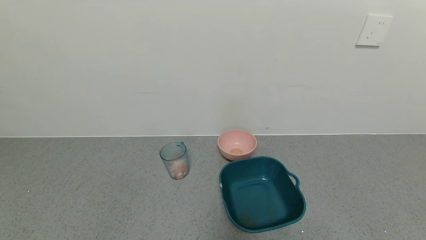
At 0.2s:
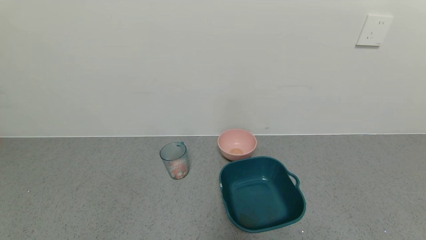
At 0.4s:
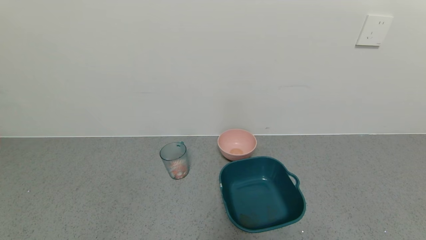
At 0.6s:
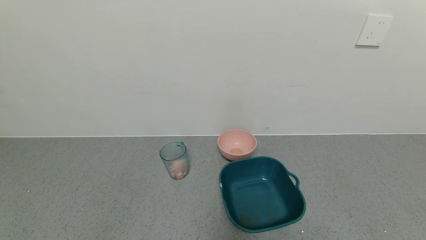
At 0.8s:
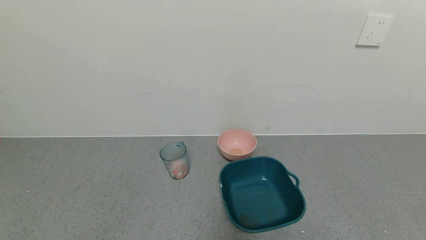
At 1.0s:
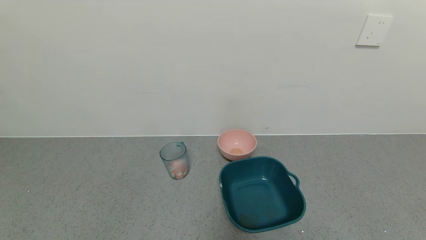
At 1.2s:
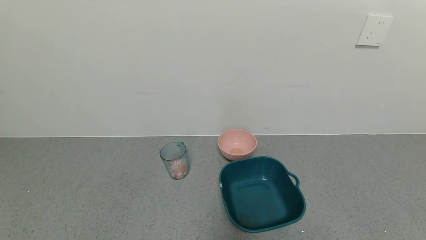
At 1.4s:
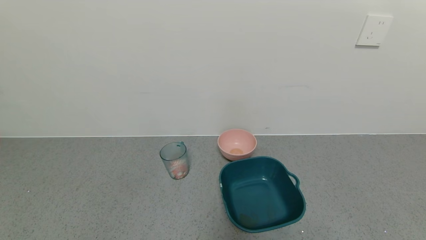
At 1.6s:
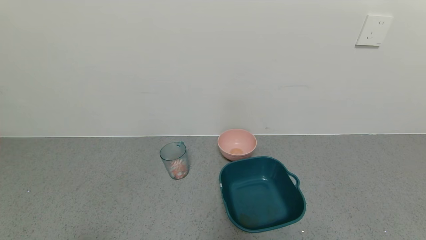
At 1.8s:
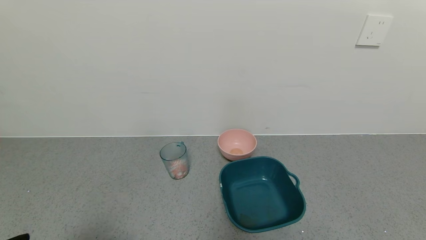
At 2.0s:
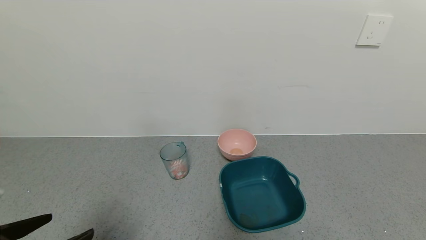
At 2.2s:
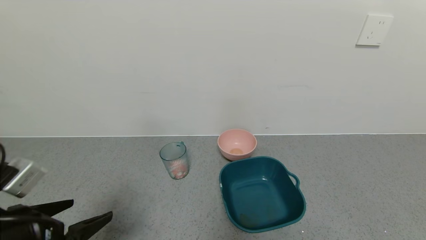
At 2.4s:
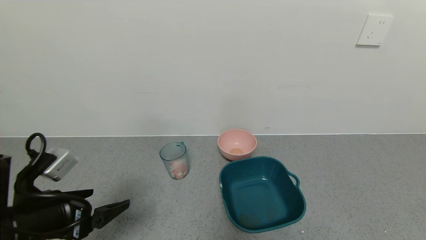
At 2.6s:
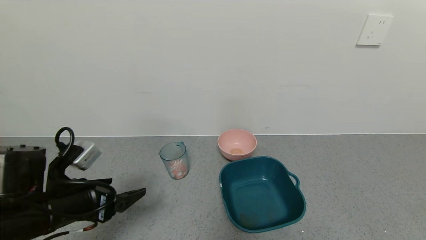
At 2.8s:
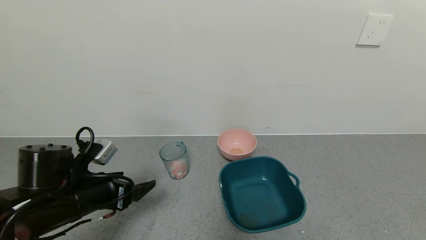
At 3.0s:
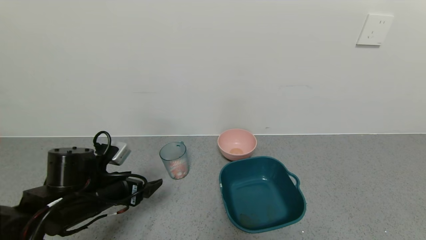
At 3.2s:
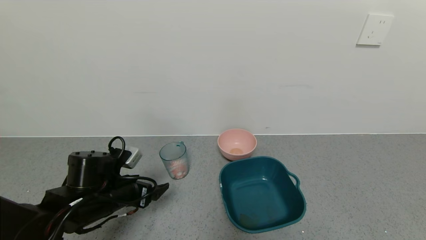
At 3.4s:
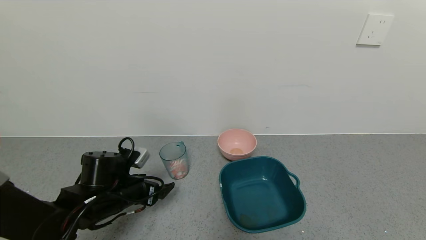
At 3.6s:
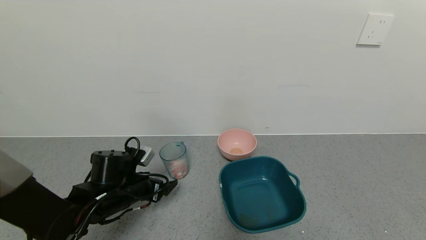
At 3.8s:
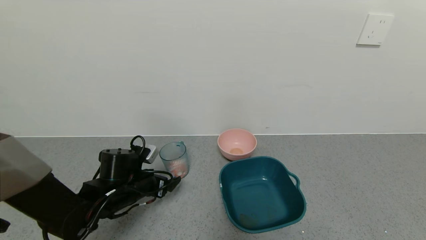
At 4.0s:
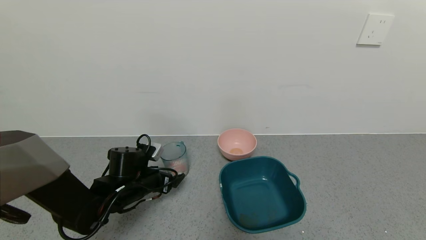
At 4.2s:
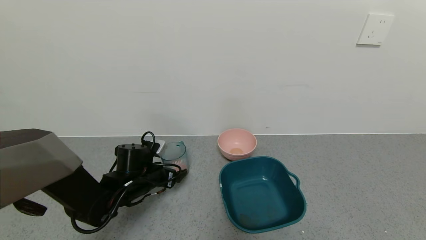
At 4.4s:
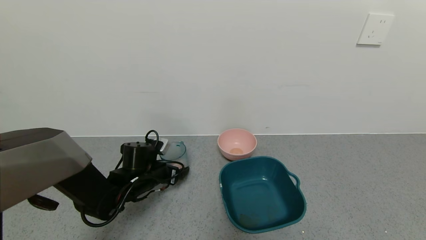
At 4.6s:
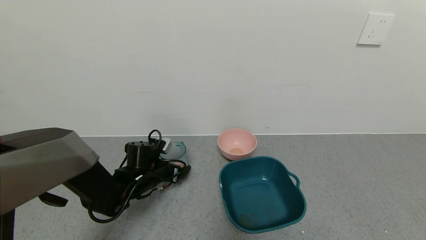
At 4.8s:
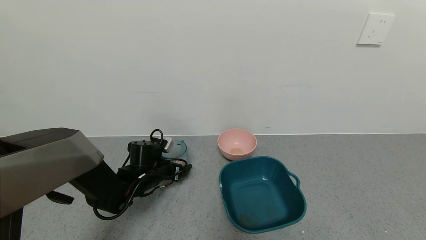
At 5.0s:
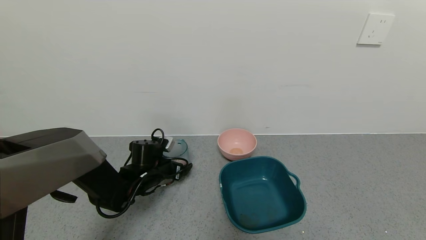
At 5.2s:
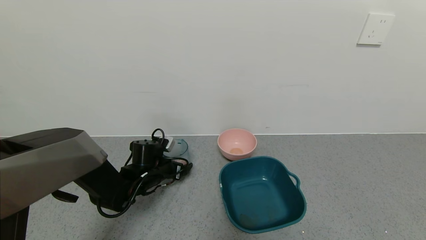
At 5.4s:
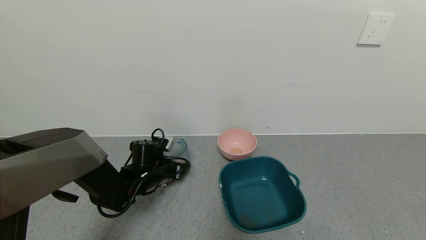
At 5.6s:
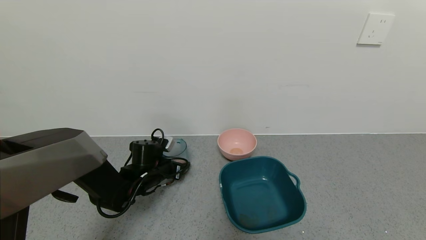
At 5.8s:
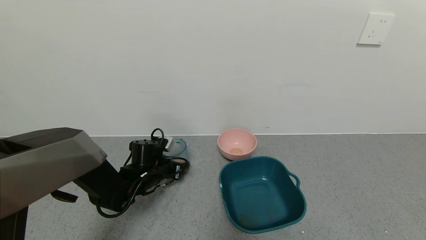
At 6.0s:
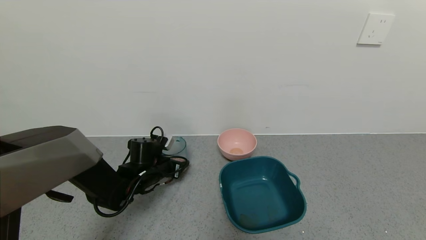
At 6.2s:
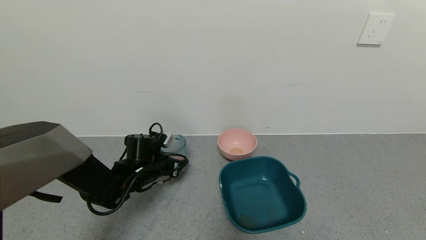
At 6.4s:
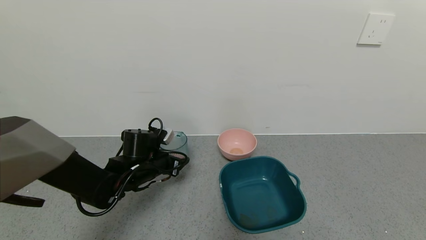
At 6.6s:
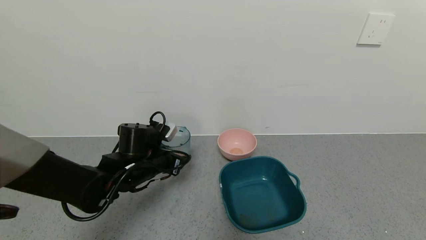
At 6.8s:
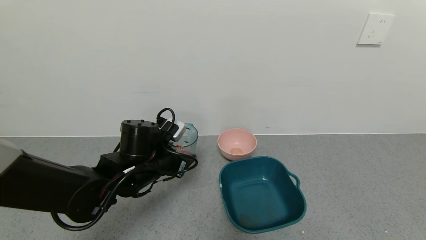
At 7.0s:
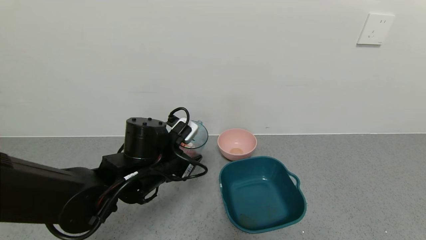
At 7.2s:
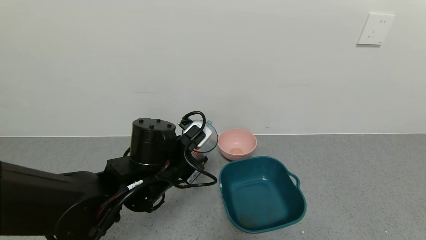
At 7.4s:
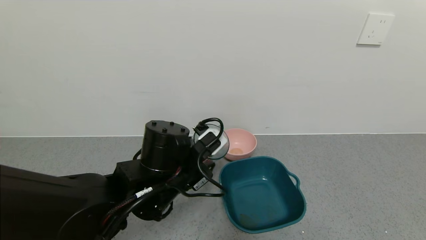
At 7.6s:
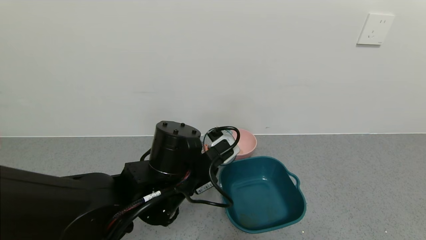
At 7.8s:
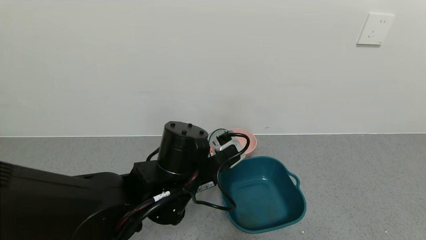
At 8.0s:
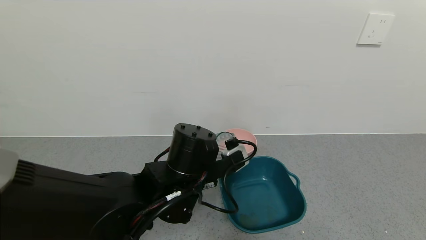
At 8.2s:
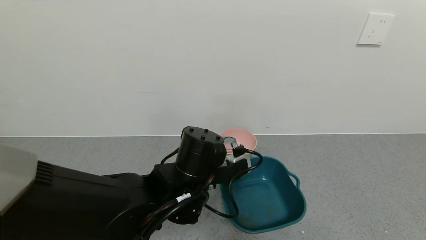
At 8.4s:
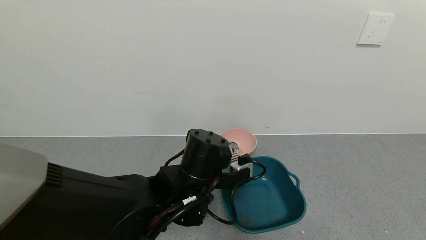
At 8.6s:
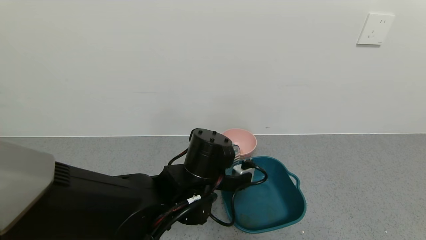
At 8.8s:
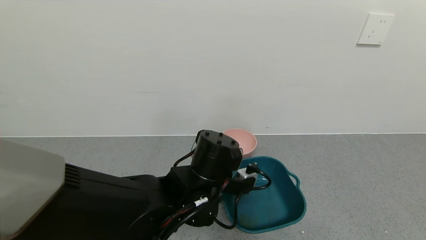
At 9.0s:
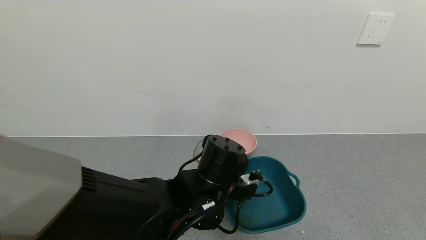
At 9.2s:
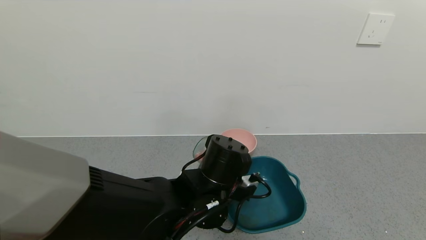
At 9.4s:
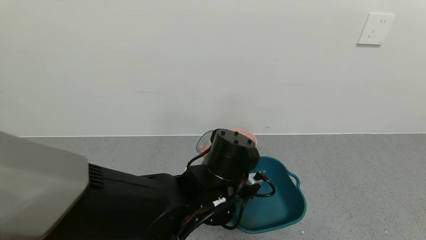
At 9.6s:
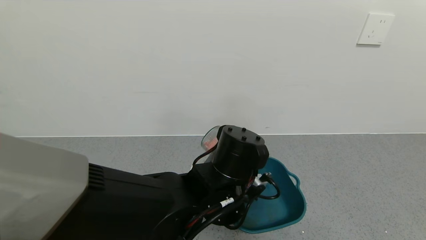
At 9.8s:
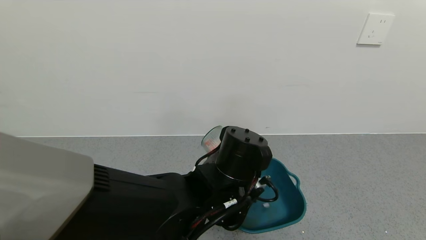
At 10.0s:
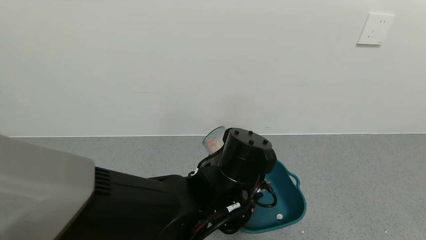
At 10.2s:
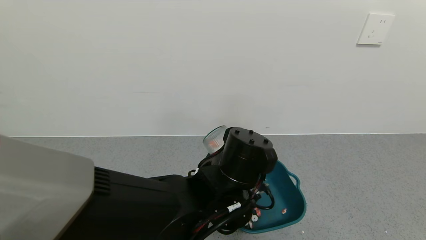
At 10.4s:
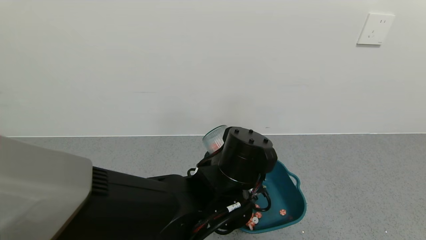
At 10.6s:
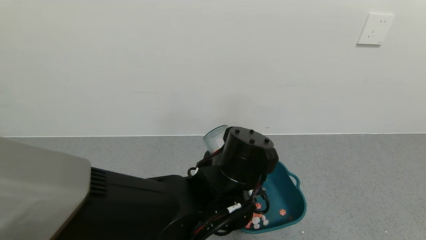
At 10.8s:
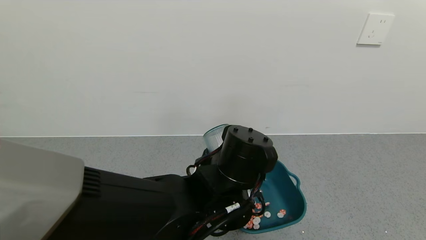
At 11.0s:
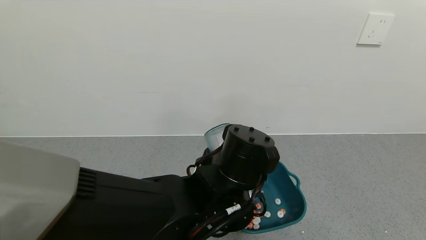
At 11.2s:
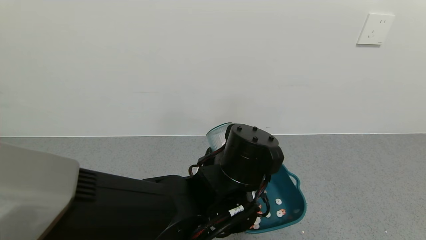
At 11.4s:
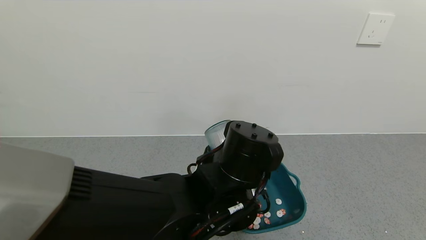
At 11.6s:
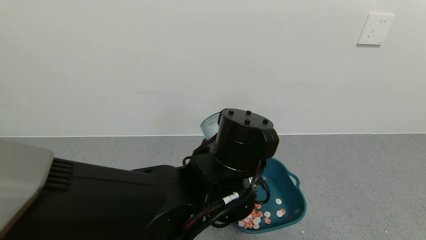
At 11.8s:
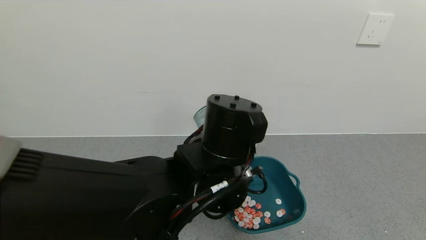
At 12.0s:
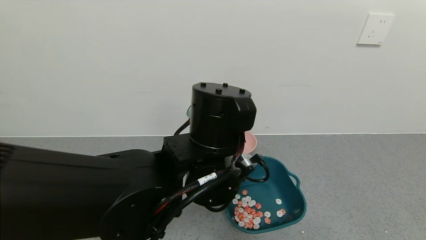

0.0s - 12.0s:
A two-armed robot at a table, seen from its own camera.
Task of the whole recording: use a gripper to pick up the cup and pour the solid into a bowl or tray.
Step, 0.0s - 5.4s: Grasp the glass of shrimp with the left gripper.
Step, 5.6s - 11.8s: Pour the shrimp beans into the green bowl with the left gripper.
1.6s - 3.0s: The left gripper travels forward by approximately 25 cm.
3.0s - 4.4s: The left gripper moves forward and downward, about 10 cm.
4.4s - 6.0s: The left gripper closes its fingers.
6.0s - 7.6s: The left gripper heads backward, to the right and upward, covering about 20 cm.
7.6s - 9.0s: The left gripper shifts by about 5 cm.
10.4s - 12.0s: The left gripper goes about 5 cm upward.

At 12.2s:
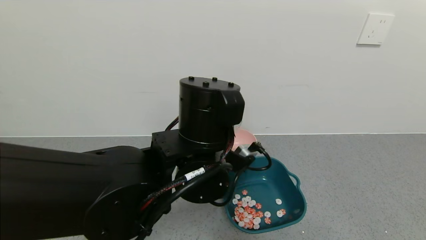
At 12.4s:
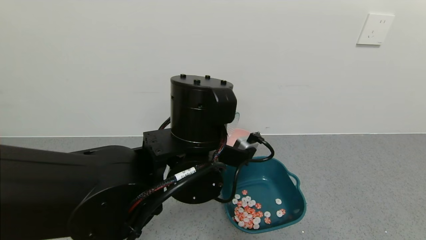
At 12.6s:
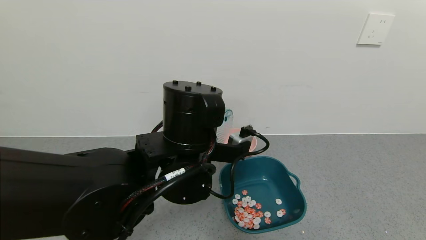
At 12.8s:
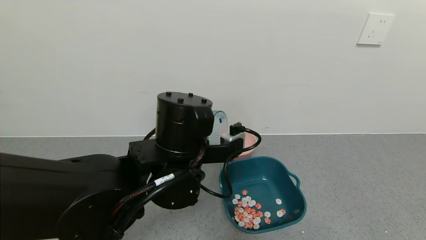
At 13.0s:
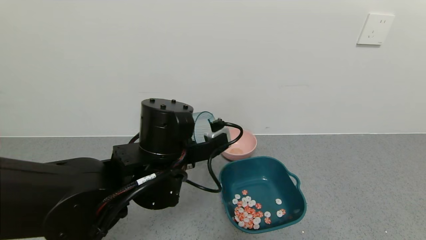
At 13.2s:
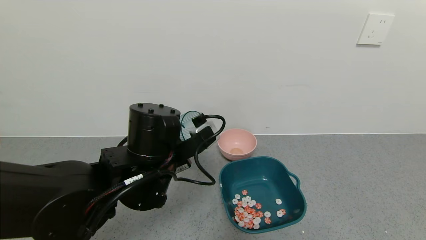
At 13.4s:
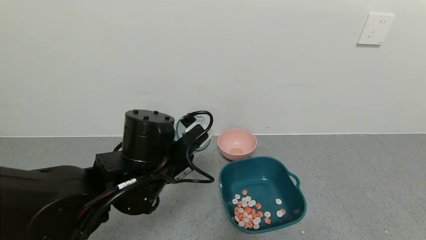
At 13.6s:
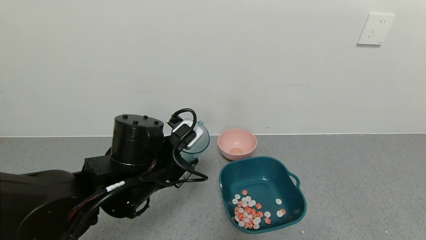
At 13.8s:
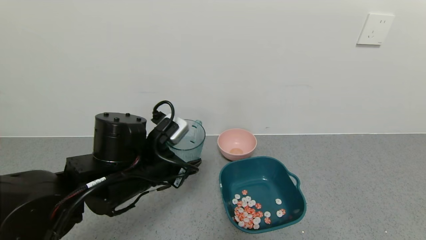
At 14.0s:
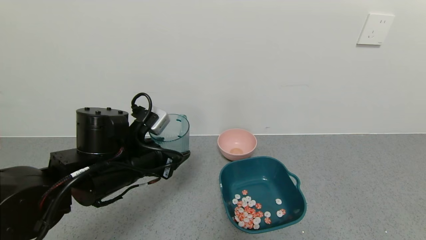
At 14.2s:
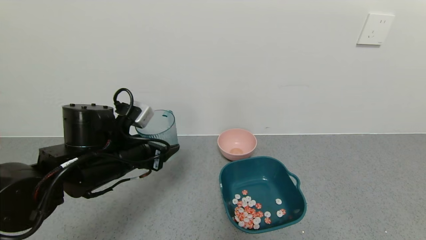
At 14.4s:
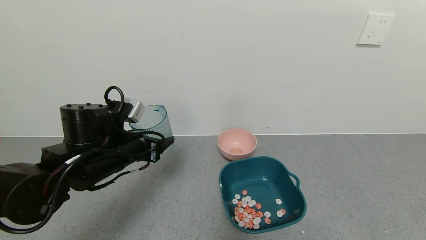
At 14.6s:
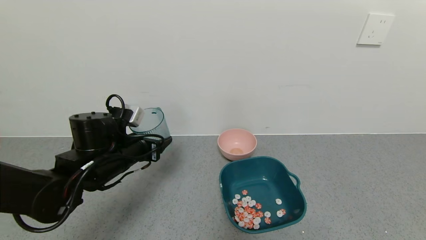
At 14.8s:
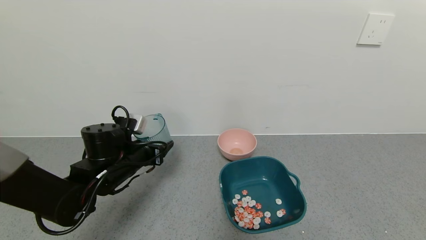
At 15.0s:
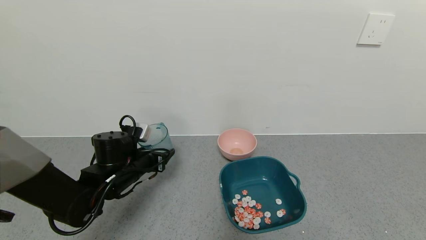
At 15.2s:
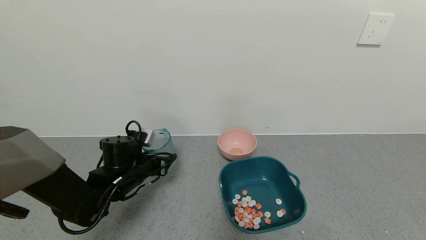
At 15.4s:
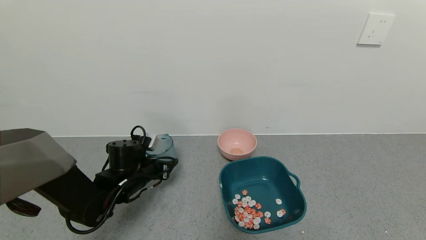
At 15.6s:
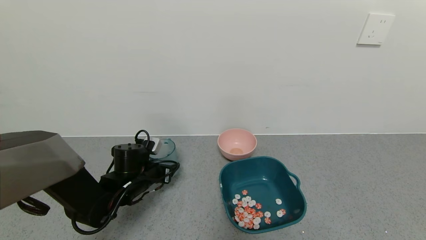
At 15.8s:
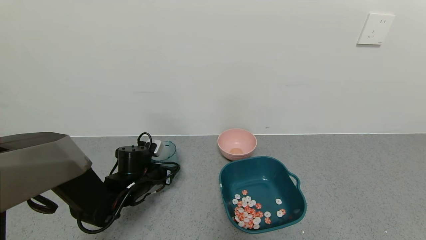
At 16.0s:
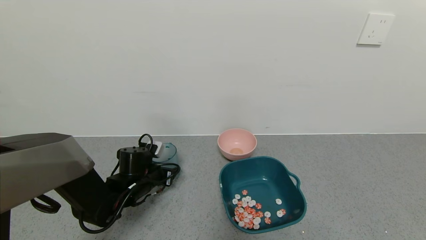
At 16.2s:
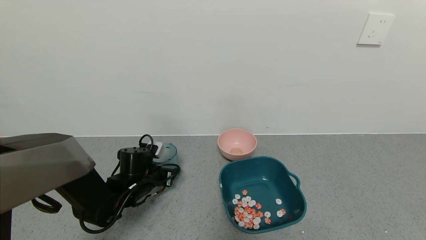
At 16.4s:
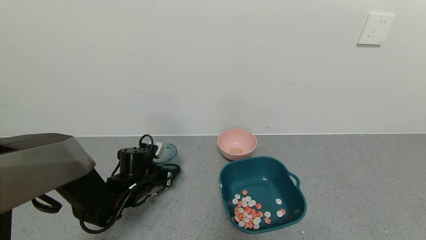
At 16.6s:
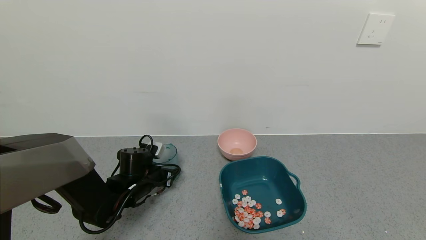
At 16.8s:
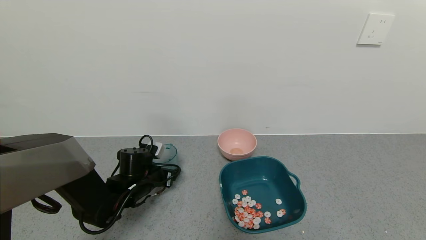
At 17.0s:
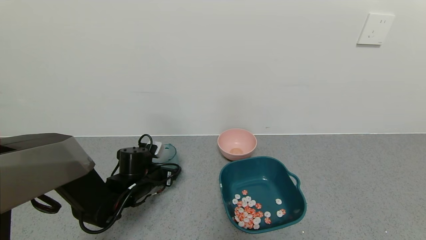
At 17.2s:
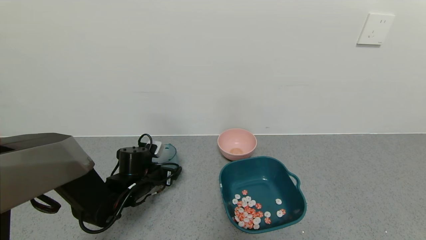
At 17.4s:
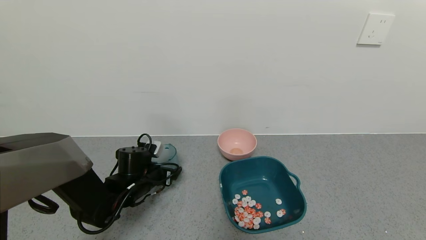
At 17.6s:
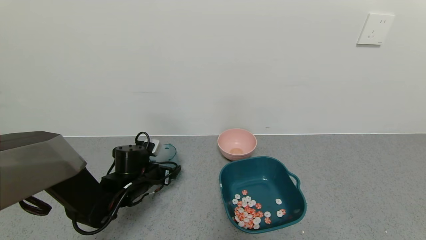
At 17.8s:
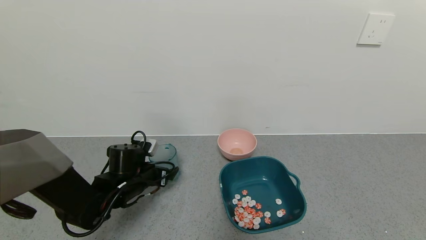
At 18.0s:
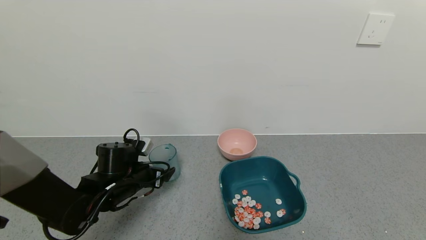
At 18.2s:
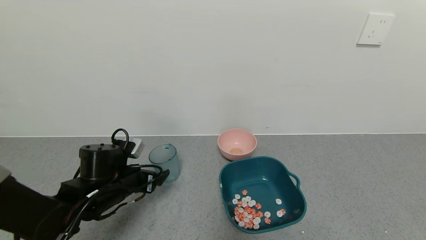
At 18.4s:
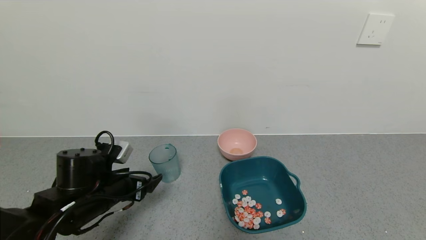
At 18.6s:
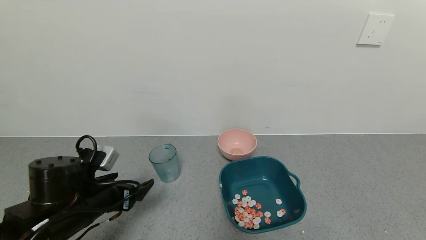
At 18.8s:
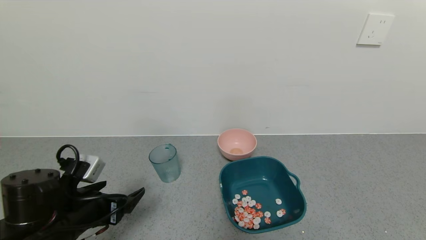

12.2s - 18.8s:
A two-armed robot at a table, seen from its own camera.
Task of the whole recording: use a gripper to pick up the cup and pour the solid into a bowl or tray.
Step, 12.2s - 18.0s: Place the glass cup with the left gripper.
12.2s - 13.8s: The left gripper travels to the left and downward by approximately 15 cm.
13.8s - 15.4s: The left gripper heads downward, forward and to the left, covering approximately 15 cm.
15.4s - 17.2s: The left gripper opens.
17.2s - 18.8s: The left gripper moves backward and upward, about 20 cm.
